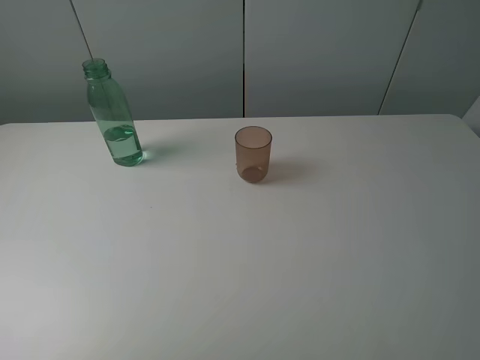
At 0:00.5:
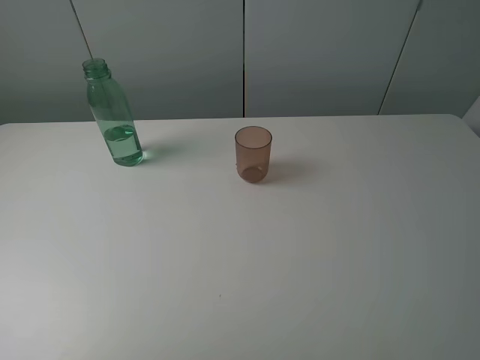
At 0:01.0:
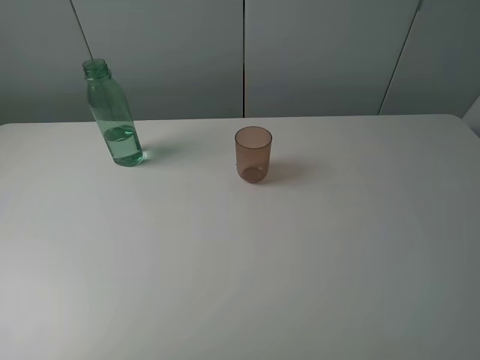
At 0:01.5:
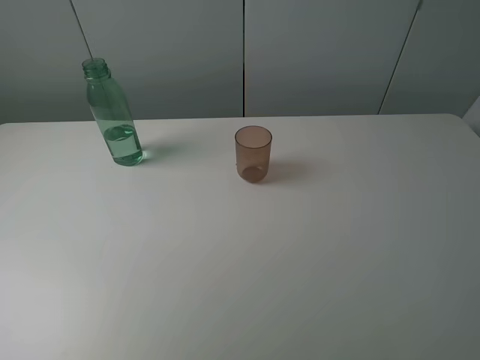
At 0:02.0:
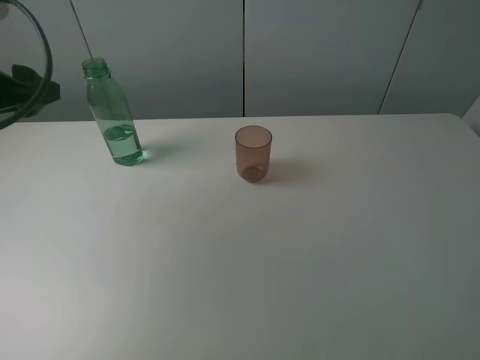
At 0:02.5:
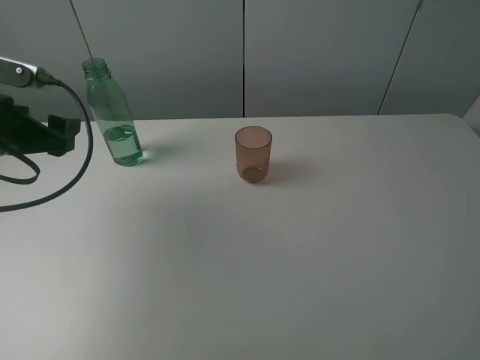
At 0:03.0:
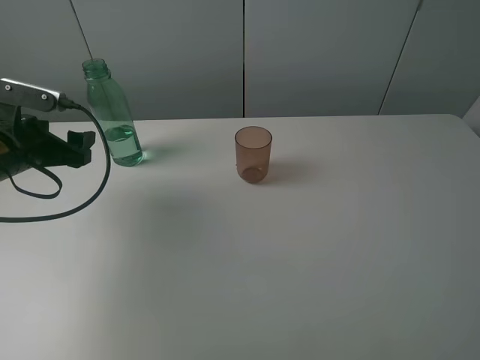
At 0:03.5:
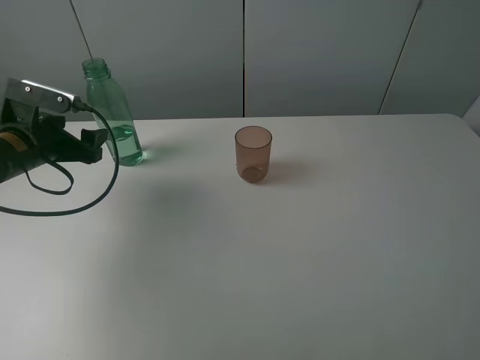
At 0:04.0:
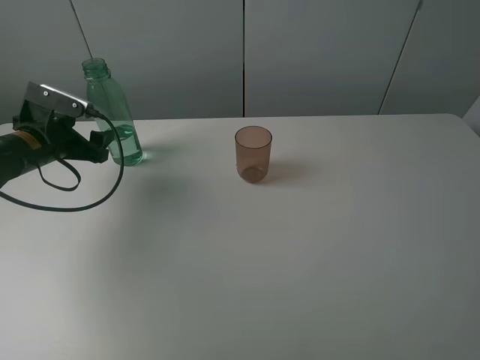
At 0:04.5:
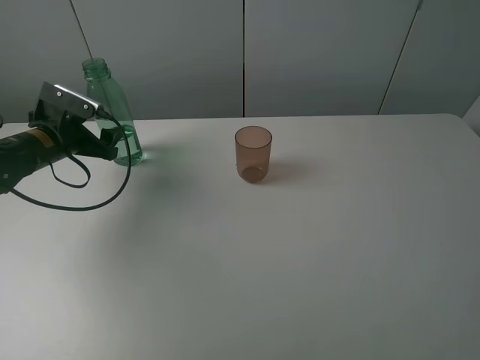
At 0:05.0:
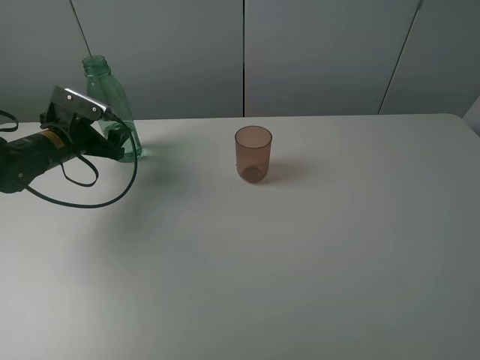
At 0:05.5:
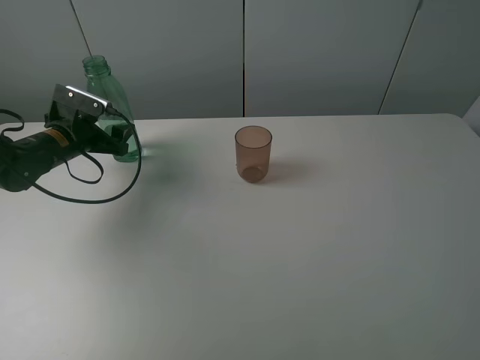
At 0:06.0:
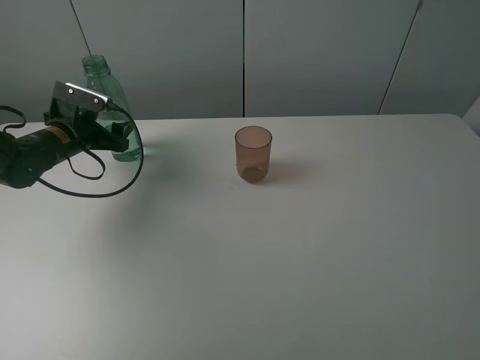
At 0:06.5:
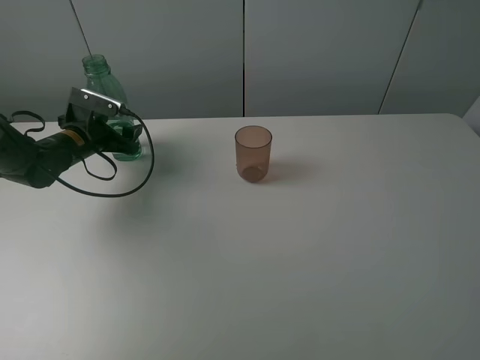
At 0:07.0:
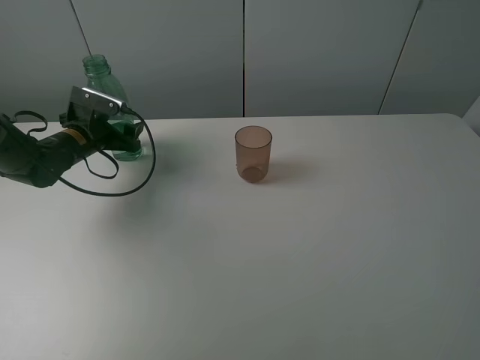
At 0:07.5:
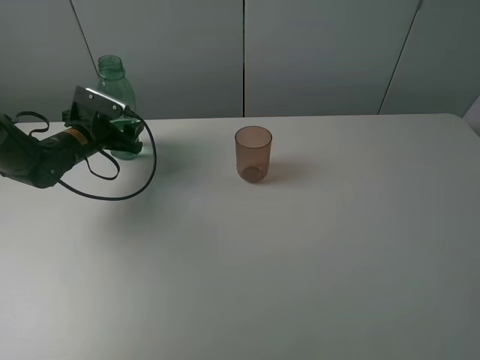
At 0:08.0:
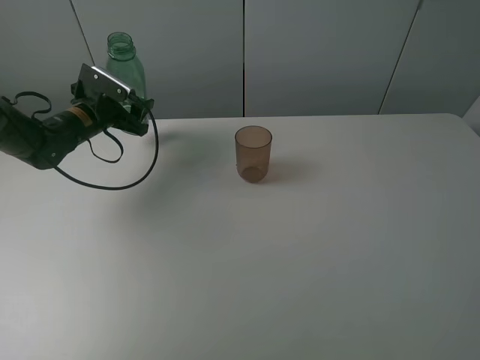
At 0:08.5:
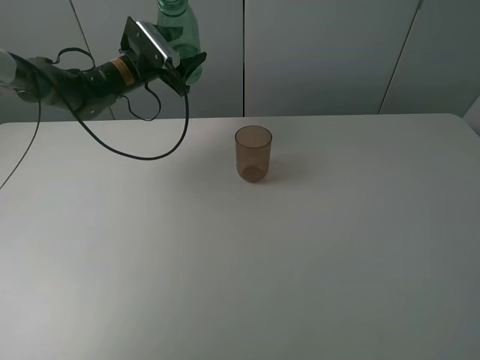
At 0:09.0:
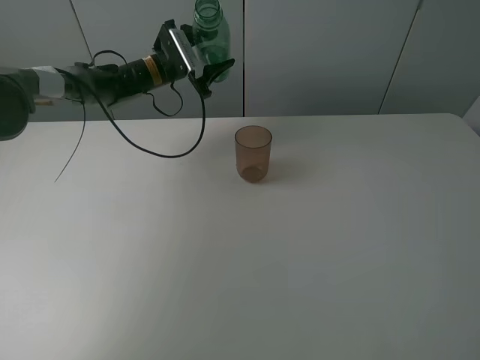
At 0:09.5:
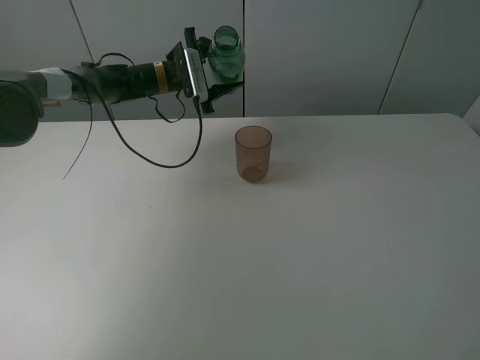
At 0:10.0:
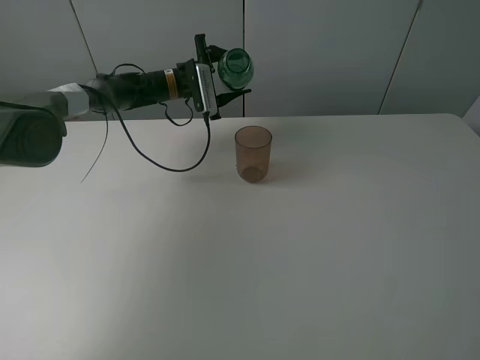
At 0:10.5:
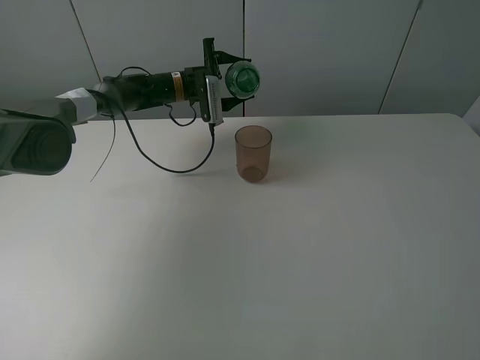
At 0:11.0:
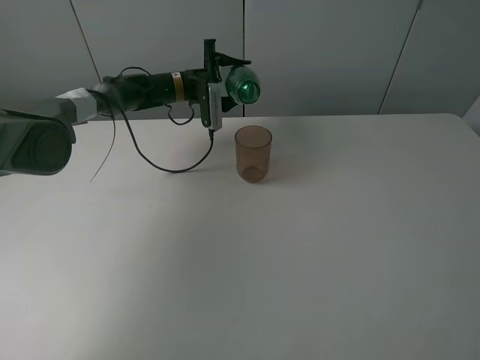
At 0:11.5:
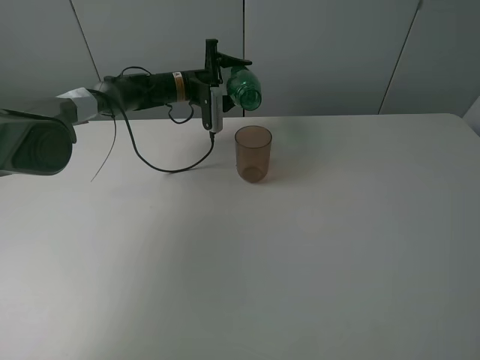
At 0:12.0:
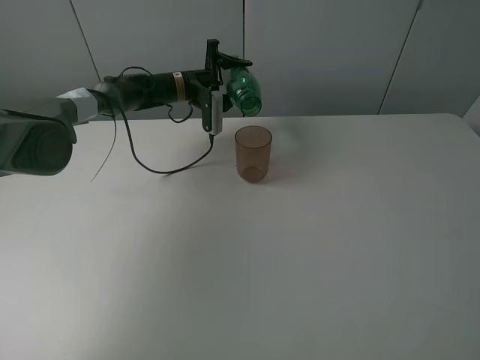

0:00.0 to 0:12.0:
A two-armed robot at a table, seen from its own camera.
Task of the whole recording: pick up the bottle filled with water and pour it into the pink cup.
Step, 0:00.0 to 0:07.0: Grasp the green bottle with the left gripper.
0:00.0 to 0:02.0: The left gripper goes roughly 25 cm forward.
0:02.0 to 0:04.0: The left gripper is displaced downward and forward by approximately 15 cm.
0:04.0 to 0:06.0: The left gripper shifts by some 5 cm.
0:06.0 to 0:08.0: The left gripper shifts by some 5 cm, and closes up.
0:08.0 to 0:10.0: The left gripper goes some 20 cm to the right and forward.

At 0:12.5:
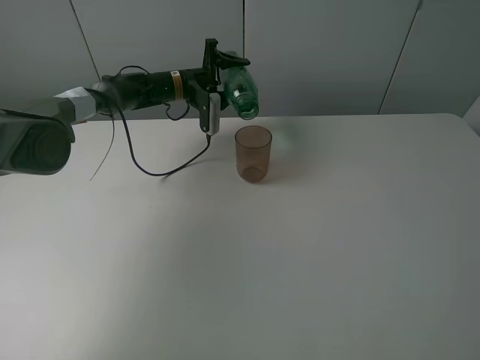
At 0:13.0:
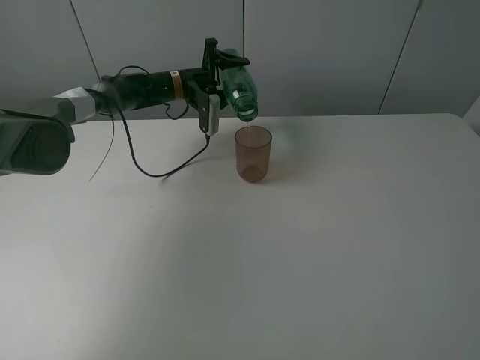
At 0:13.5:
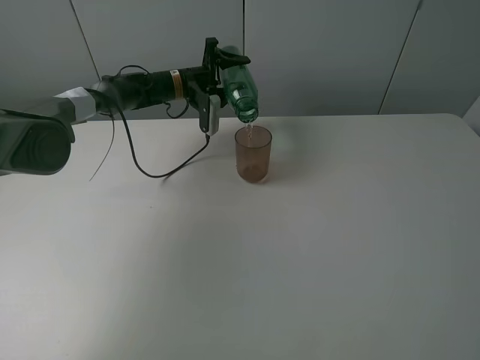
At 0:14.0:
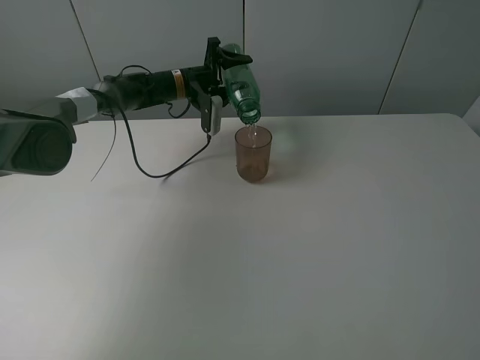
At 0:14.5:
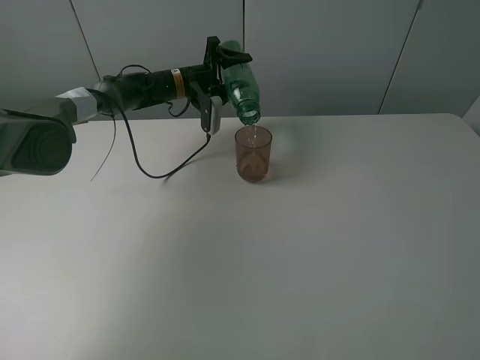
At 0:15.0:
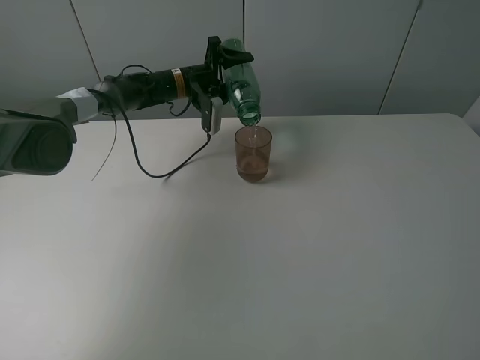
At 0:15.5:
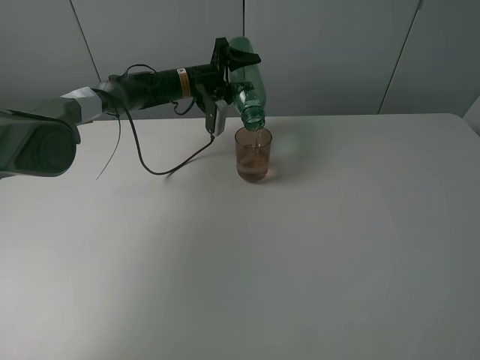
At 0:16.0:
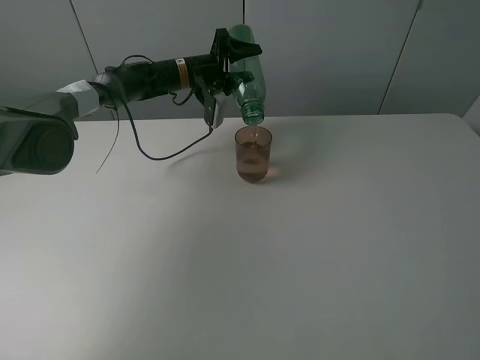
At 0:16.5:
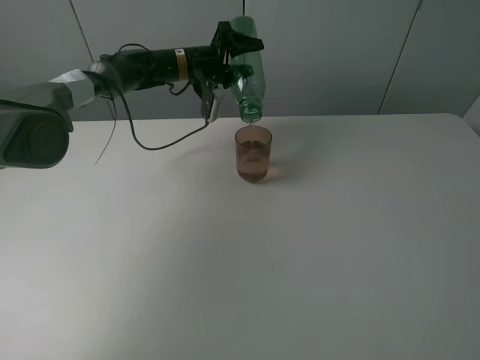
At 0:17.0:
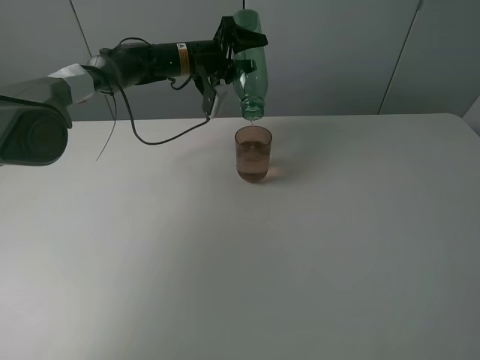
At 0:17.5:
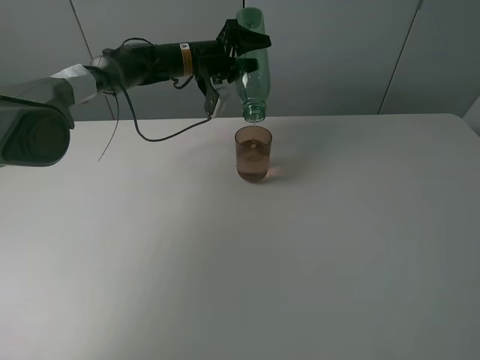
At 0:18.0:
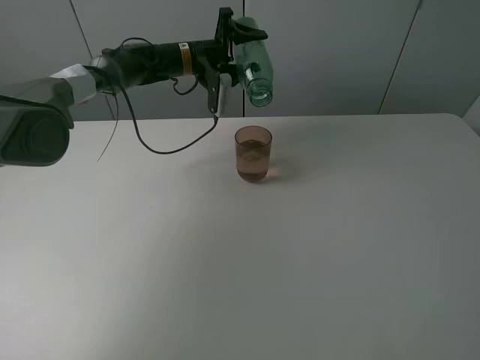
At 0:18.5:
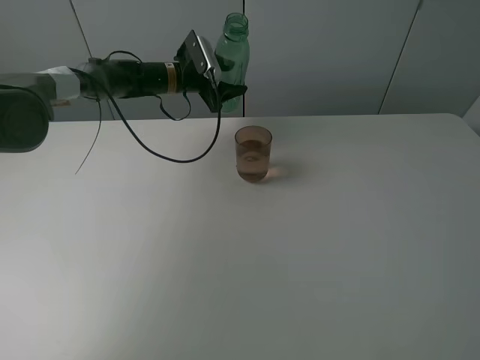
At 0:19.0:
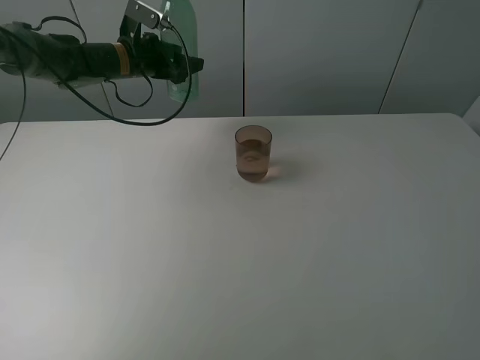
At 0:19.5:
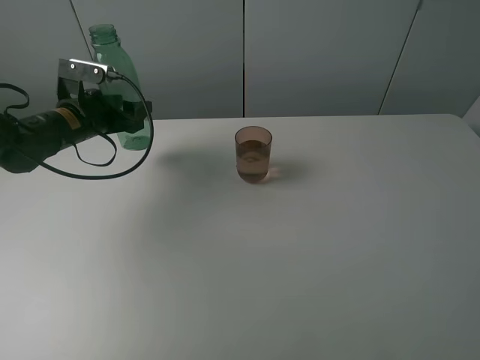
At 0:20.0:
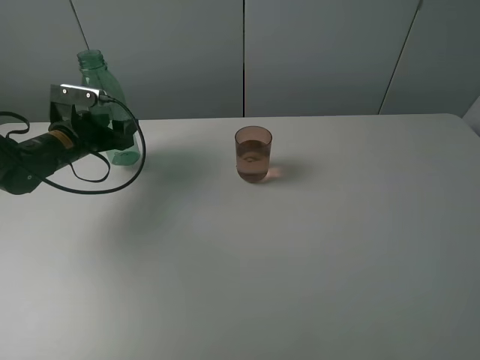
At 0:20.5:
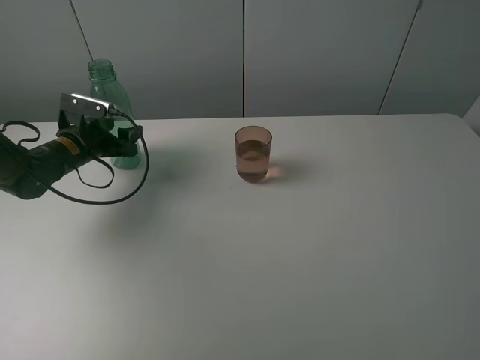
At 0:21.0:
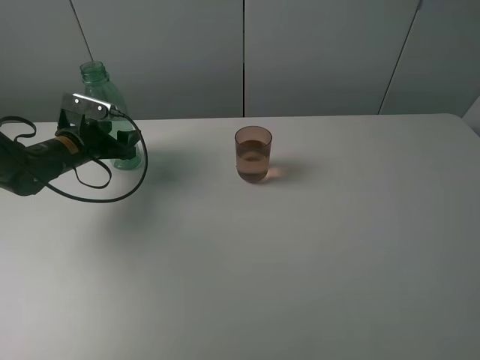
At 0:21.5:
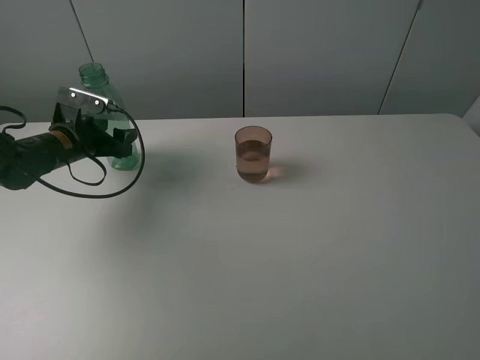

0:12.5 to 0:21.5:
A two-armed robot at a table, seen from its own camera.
Task of the whole recording: pick up the bottle filled with water and pour it into the pink cup.
Step, 0:12.5 to 0:18.0: Pour water from green bottle to pink cup with the left gripper.
0:12.5 to 0:14.5: There are only small adjustments of the grippers.
0:14.5 to 0:17.0: The left gripper moves upward, about 5 cm.
0:17.0 to 0:19.5: The left gripper heads to the left and backward, covering roughly 25 cm.
0:19.5 to 0:21.5: There are only small adjustments of the grippers.

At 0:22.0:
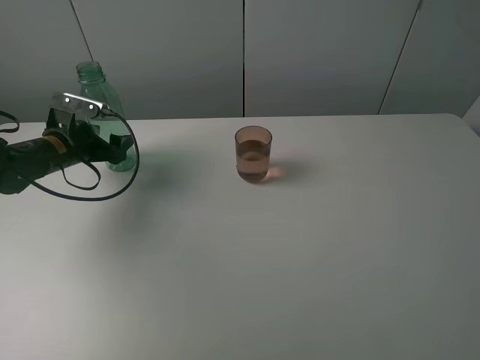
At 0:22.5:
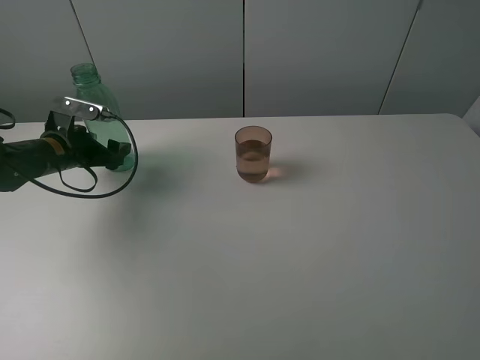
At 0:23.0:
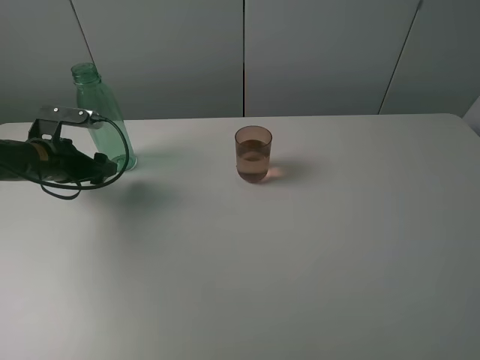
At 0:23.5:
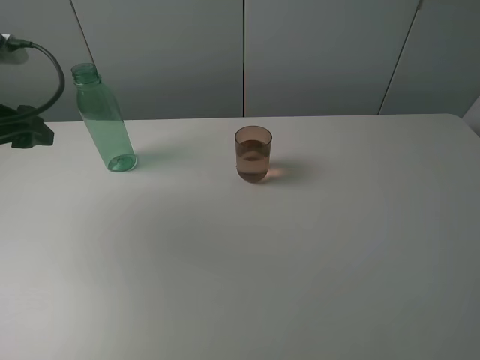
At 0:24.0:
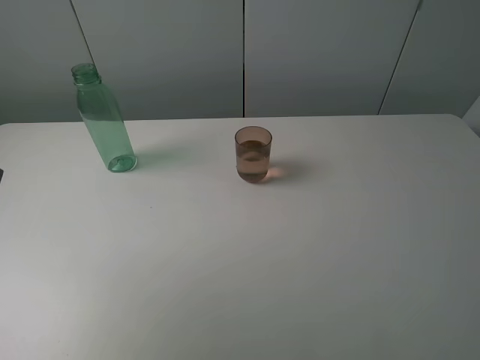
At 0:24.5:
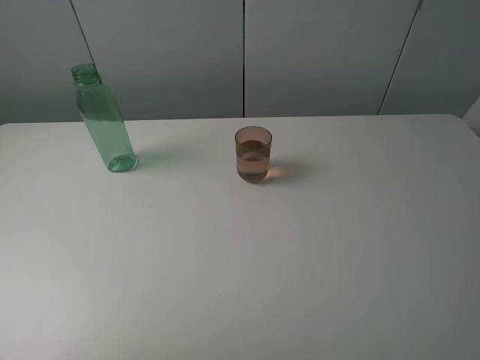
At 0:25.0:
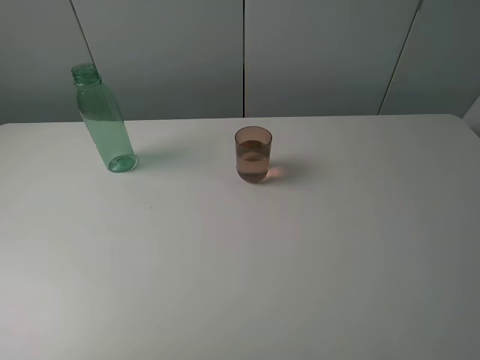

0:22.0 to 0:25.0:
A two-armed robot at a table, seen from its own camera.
Task of the whole recording: pick up the bottle filled with water and pour it into the pink cup.
0:22.0 to 0:23.5: The left gripper travels upward and backward by approximately 20 cm.
0:23.5 to 0:25.0: The left gripper moves backward, some 25 cm.

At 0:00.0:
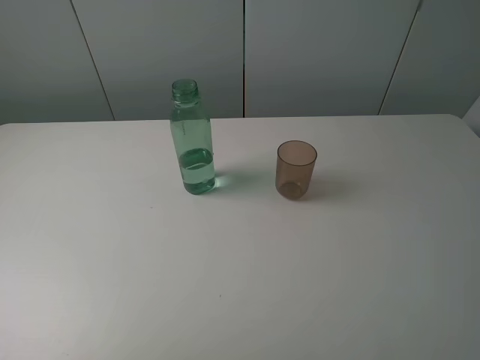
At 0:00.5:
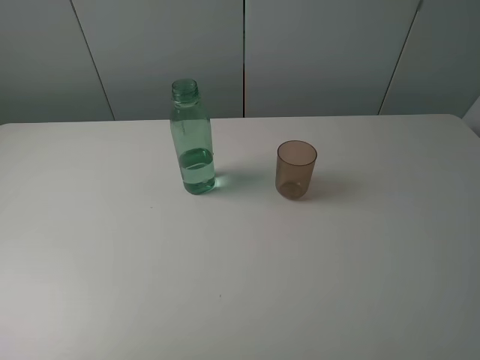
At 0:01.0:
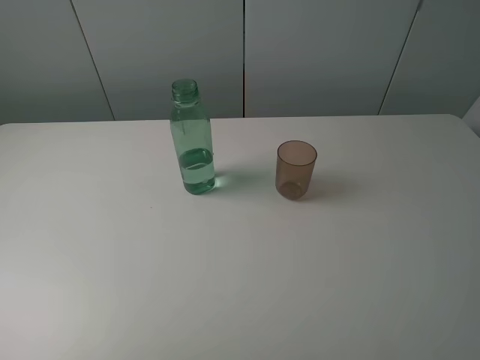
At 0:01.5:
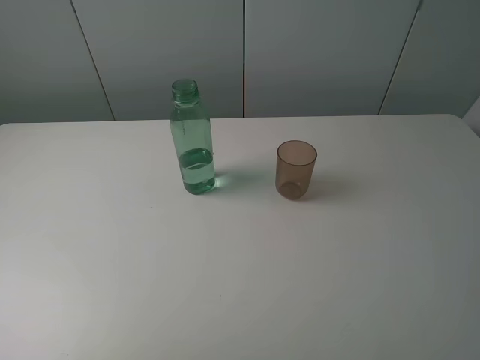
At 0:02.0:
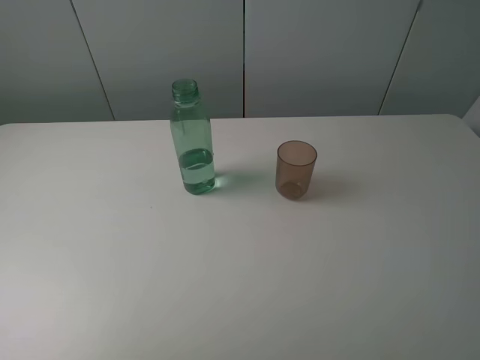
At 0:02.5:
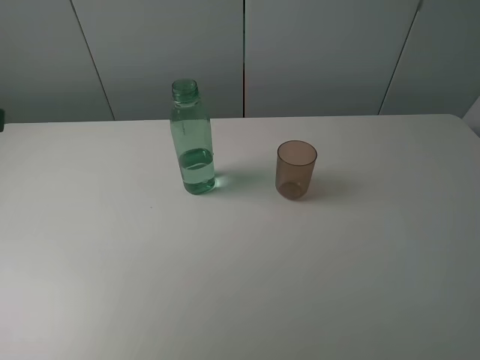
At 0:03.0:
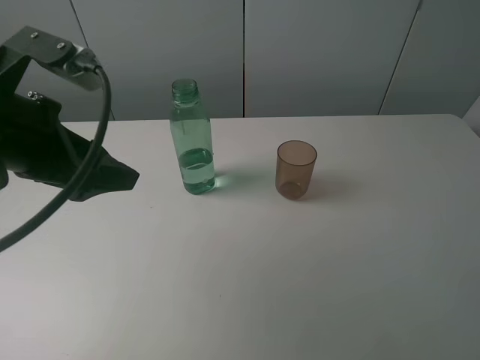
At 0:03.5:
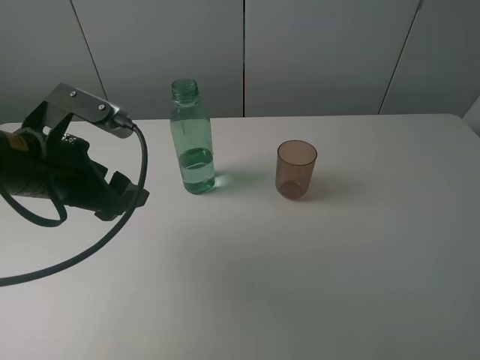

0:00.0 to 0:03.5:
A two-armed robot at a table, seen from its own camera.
Task of the whole recording: pick up the bottle filled with water and pour it into the pink cup.
0:02.0 to 0:03.5: The left gripper heads forward, downward and to the right, covering approximately 25 cm.
